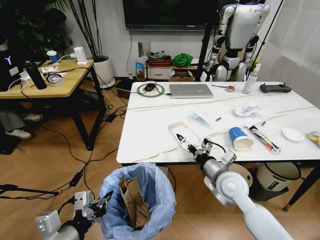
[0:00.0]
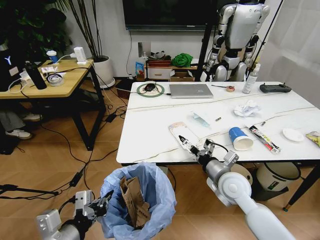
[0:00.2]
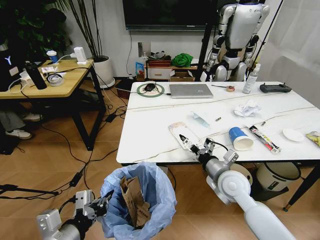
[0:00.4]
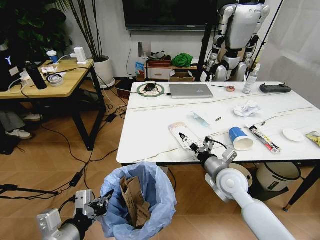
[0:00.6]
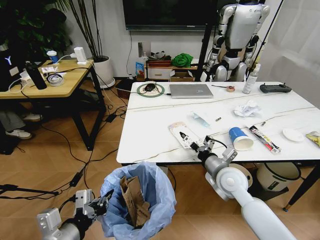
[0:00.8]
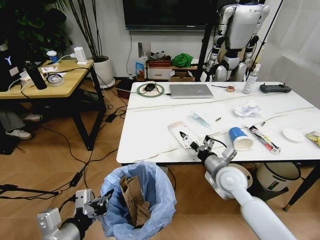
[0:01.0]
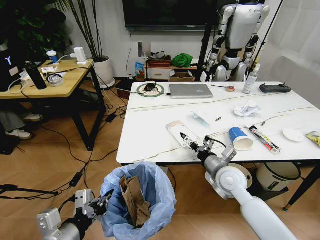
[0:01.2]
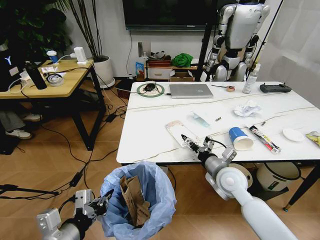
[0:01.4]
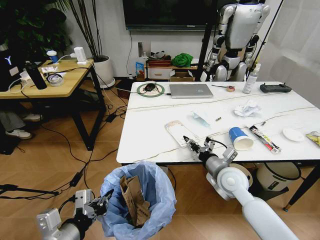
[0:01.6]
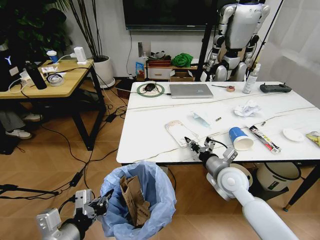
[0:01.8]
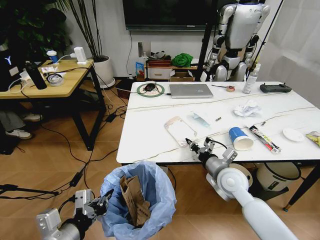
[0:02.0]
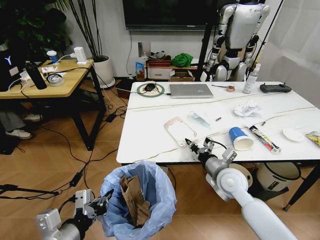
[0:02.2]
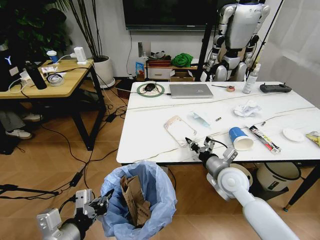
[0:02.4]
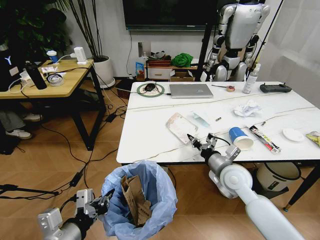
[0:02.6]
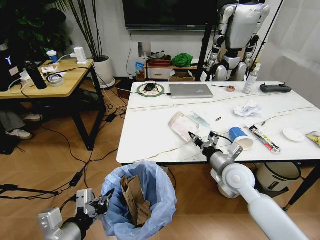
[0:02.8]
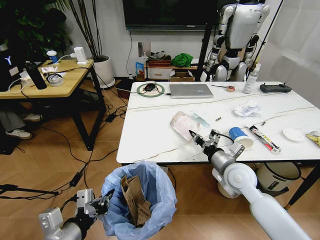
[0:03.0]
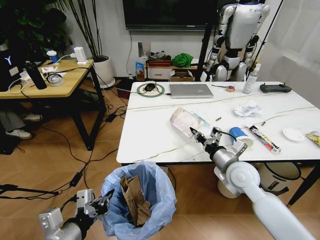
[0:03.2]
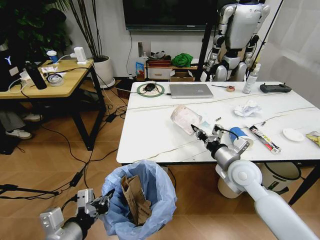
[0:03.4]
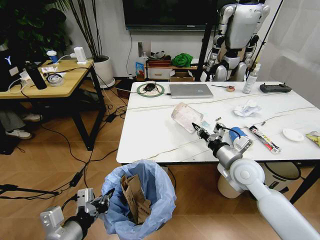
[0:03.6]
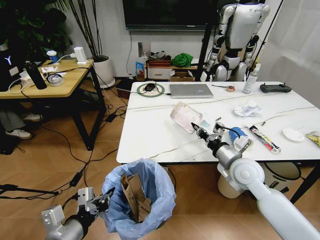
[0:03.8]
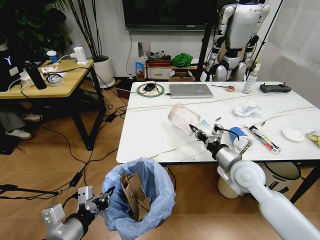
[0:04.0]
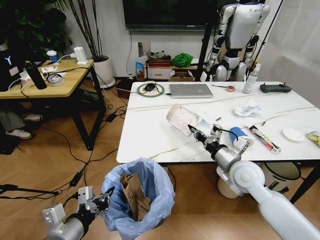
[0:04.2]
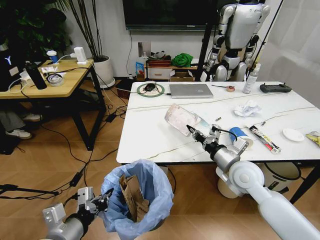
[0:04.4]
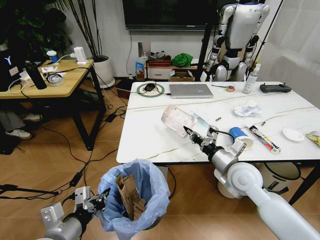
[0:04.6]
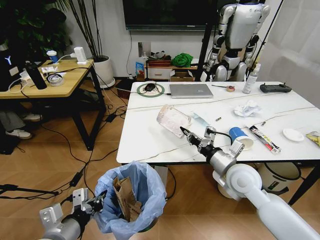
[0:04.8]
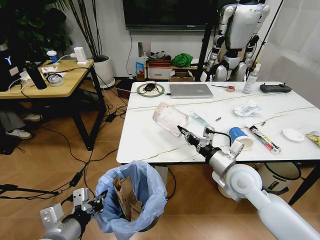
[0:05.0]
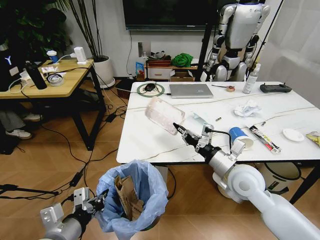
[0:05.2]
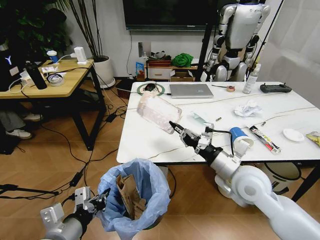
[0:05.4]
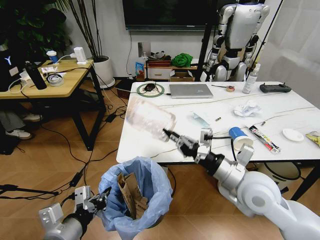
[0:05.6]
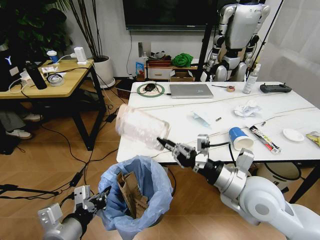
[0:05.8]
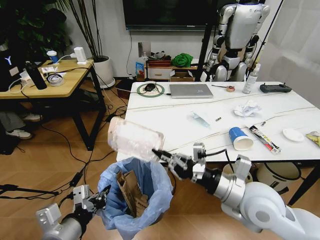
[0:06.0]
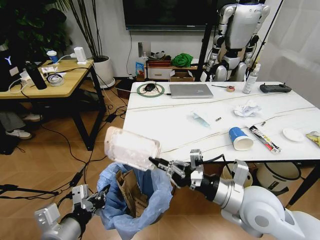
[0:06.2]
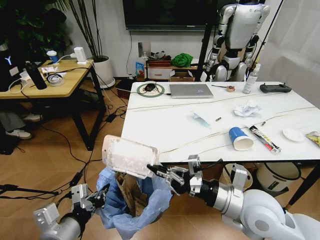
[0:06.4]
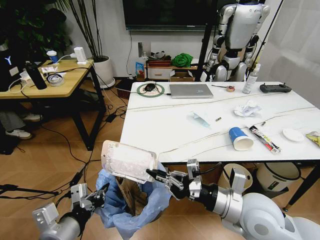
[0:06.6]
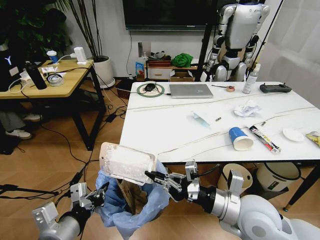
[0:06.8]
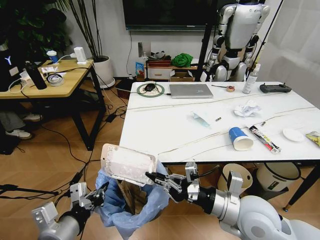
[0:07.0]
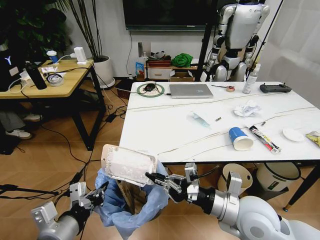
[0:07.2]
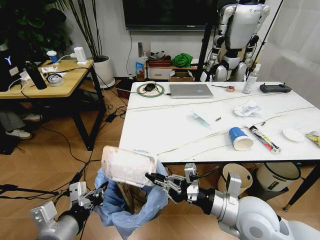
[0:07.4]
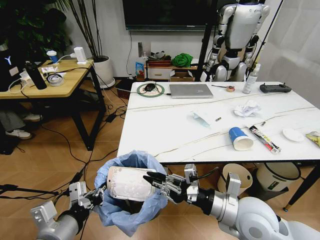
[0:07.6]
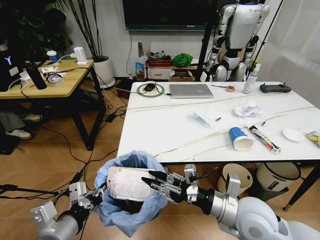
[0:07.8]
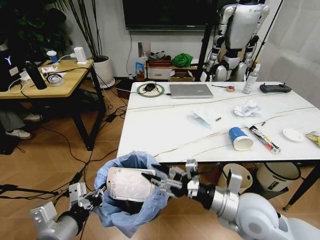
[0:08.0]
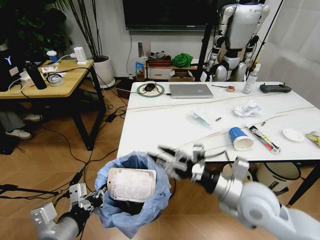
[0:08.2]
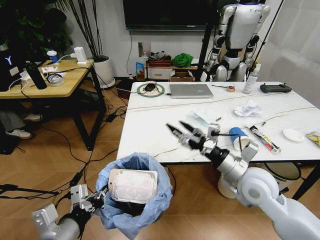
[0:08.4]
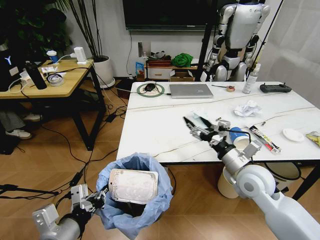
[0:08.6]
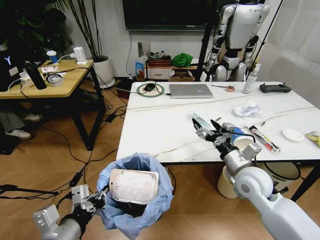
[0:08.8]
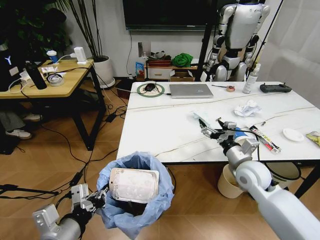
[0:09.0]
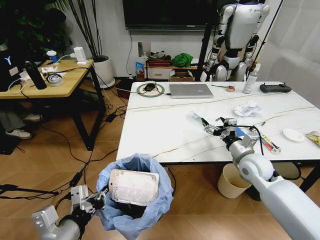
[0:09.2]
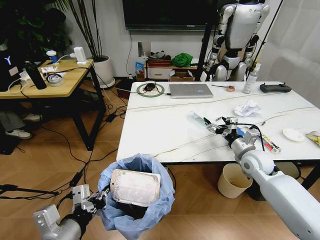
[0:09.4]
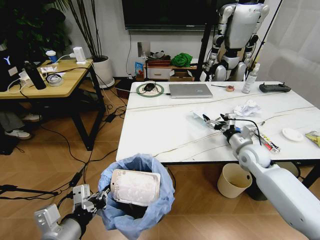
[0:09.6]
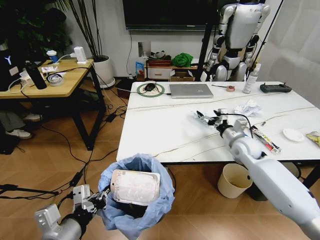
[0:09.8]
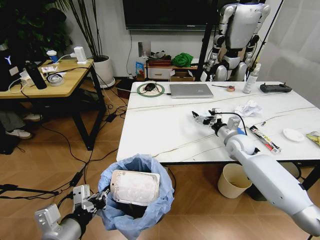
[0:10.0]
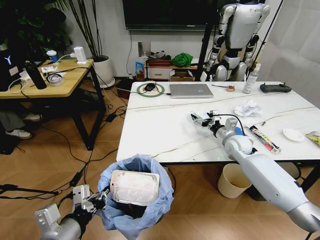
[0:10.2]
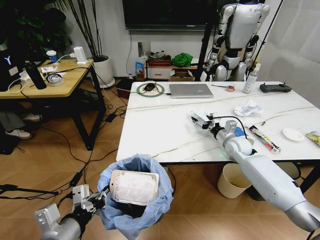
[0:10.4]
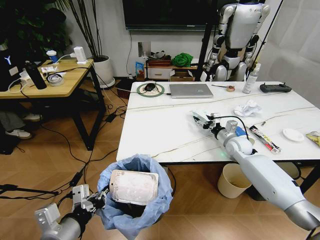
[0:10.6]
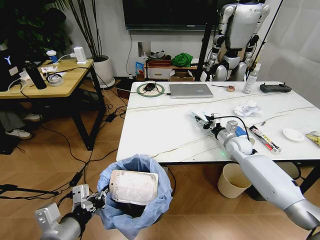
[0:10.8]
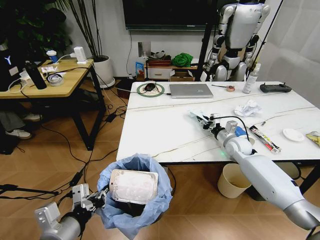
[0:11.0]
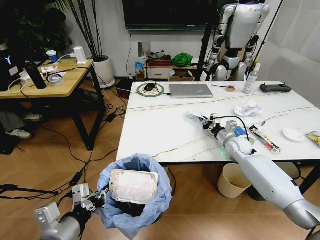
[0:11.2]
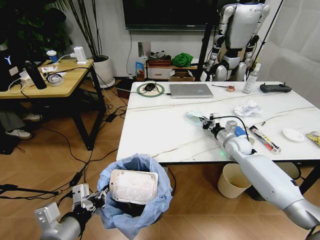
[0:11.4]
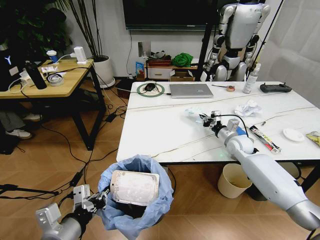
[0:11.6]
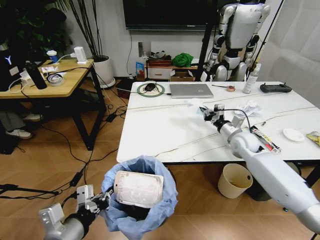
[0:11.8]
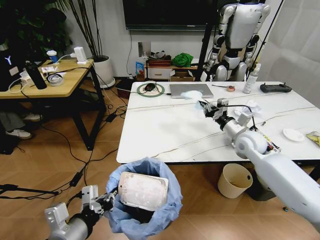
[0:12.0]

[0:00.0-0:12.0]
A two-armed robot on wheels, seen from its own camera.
Task of the whole recording: Pick up the trash bin and place the trash from the table into it.
0:00.0 to 0:01.6: The right gripper closes.
0:01.6 to 0:03.0: The right gripper closes its fingers.
0:03.0 to 0:04.4: The grippers move only a little.
0:04.4 to 0:06.0: The right gripper travels backward and upward by about 10 cm.
0:06.0 to 0:07.6: The grippers make only small movements.
0:07.6 to 0:09.0: The right gripper heads forward and to the right, covering some 15 cm, and opens.
0:09.0 to 0:10.4: The right gripper is displaced forward by about 15 cm.
0:10.4 to 0:12.0: The right gripper travels upward and backward by about 10 cm, and closes up.

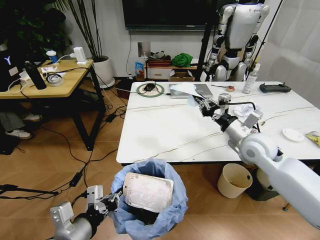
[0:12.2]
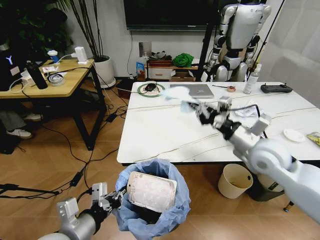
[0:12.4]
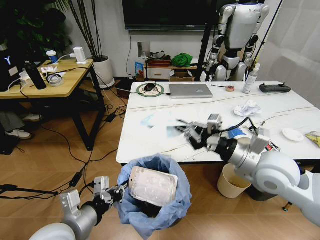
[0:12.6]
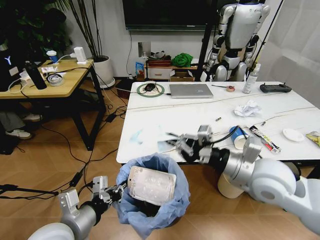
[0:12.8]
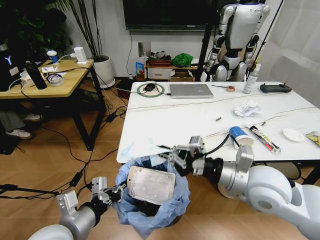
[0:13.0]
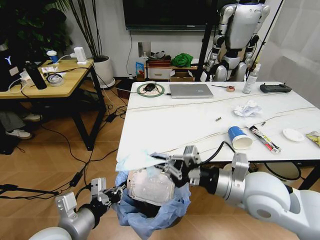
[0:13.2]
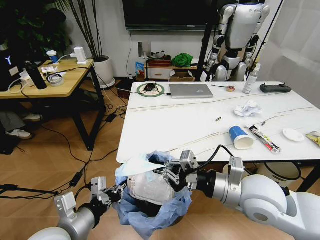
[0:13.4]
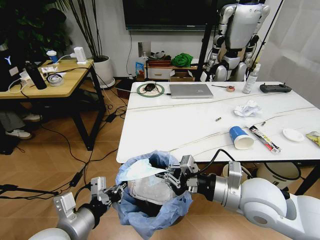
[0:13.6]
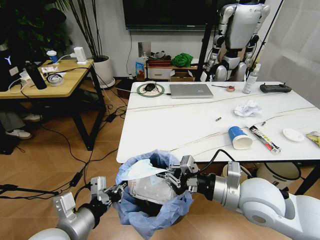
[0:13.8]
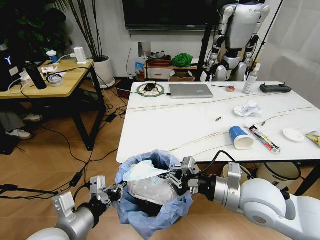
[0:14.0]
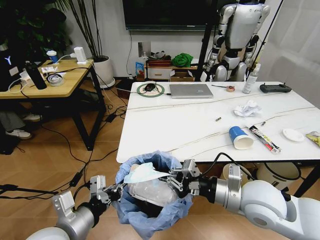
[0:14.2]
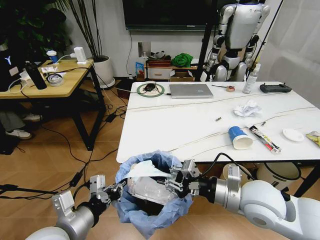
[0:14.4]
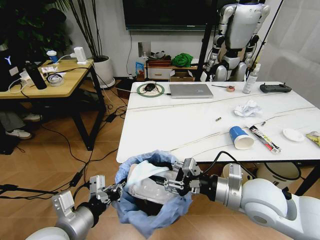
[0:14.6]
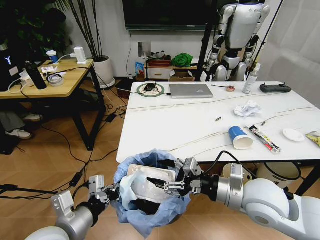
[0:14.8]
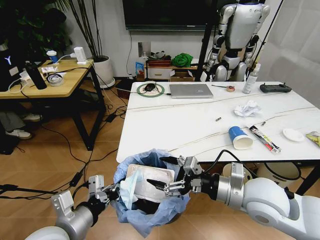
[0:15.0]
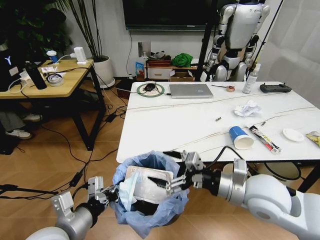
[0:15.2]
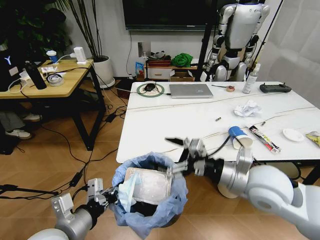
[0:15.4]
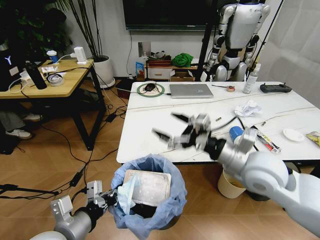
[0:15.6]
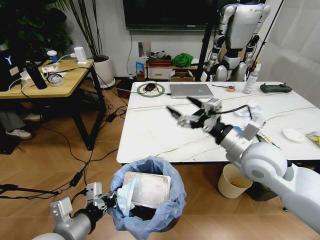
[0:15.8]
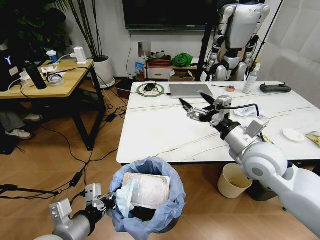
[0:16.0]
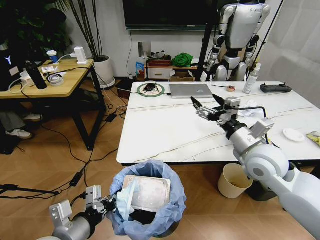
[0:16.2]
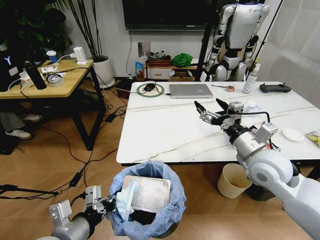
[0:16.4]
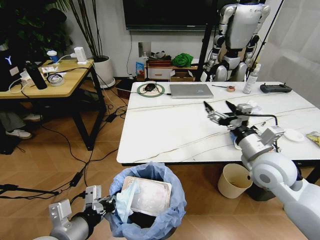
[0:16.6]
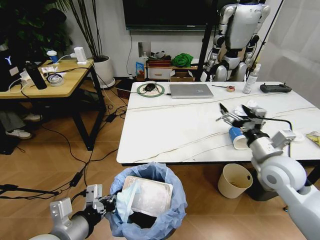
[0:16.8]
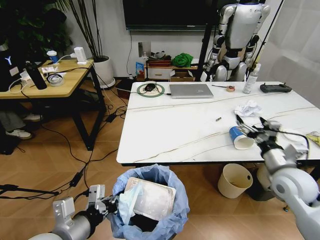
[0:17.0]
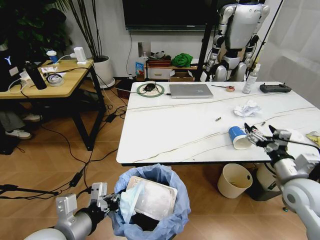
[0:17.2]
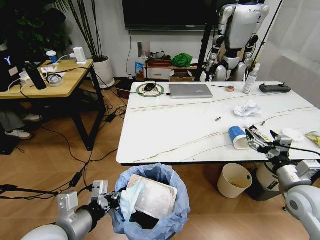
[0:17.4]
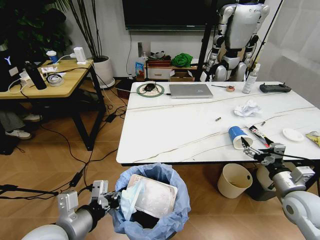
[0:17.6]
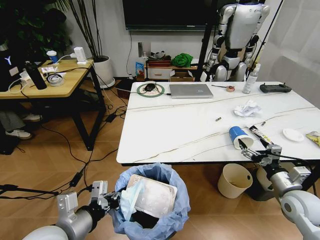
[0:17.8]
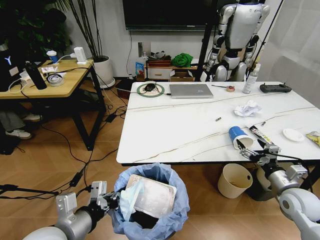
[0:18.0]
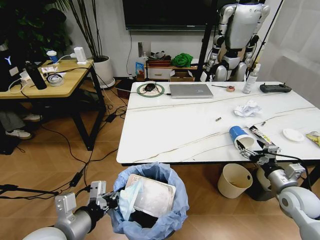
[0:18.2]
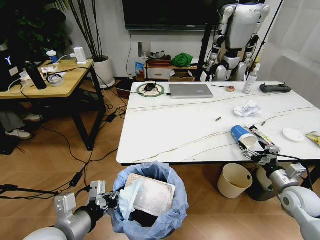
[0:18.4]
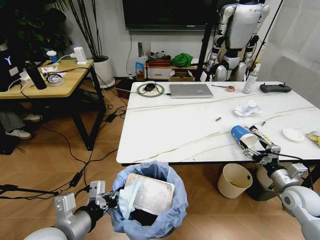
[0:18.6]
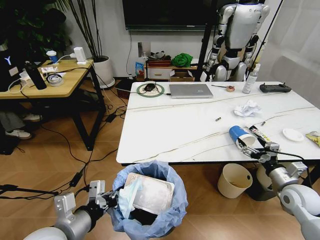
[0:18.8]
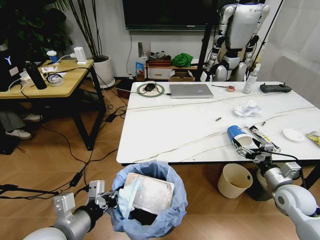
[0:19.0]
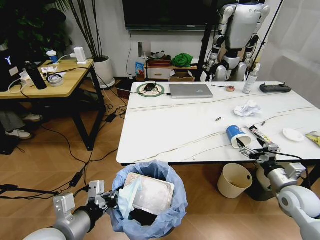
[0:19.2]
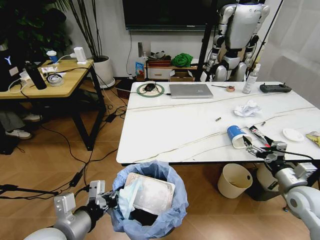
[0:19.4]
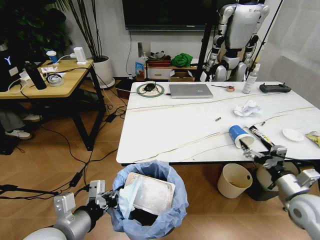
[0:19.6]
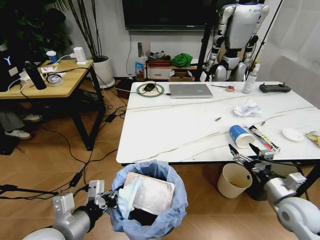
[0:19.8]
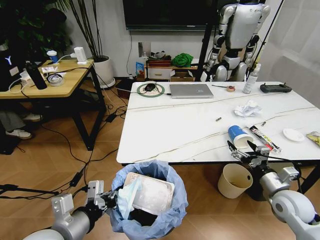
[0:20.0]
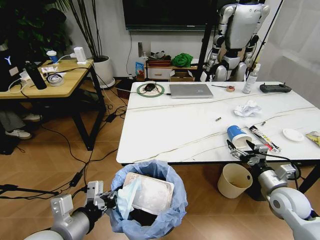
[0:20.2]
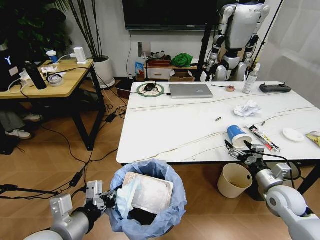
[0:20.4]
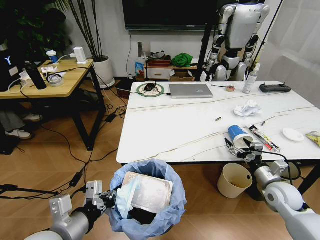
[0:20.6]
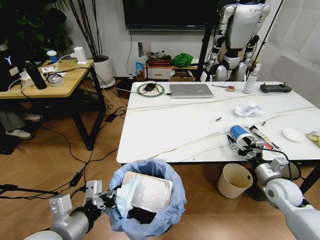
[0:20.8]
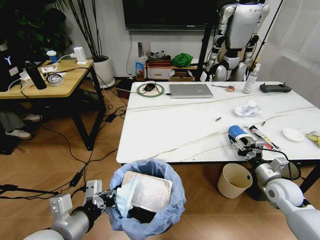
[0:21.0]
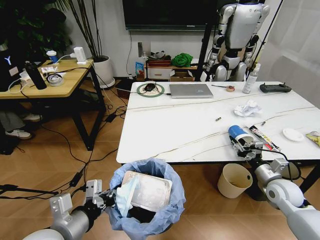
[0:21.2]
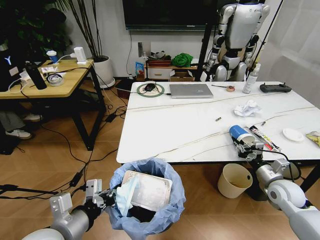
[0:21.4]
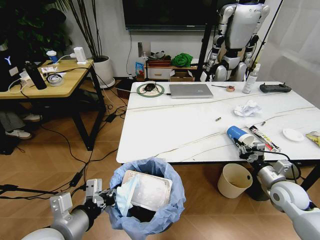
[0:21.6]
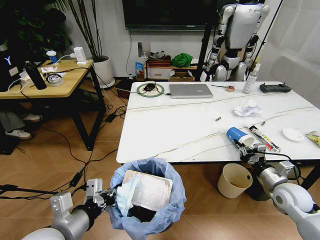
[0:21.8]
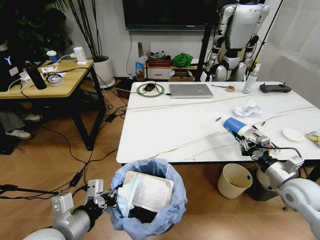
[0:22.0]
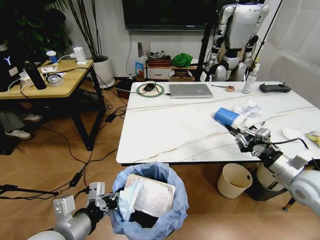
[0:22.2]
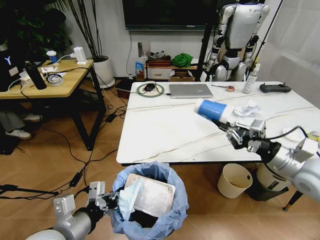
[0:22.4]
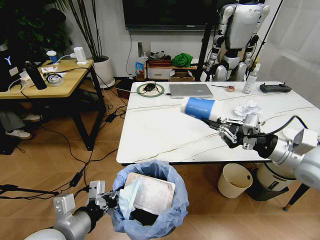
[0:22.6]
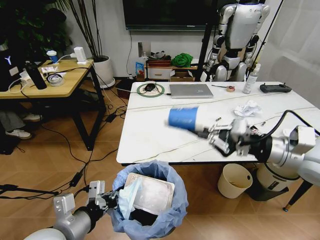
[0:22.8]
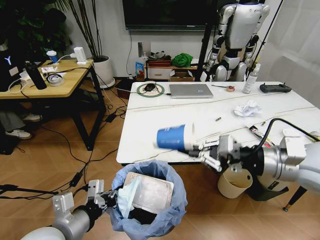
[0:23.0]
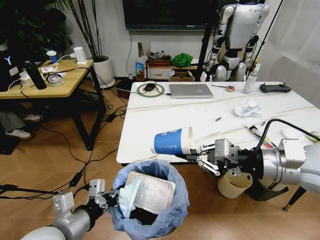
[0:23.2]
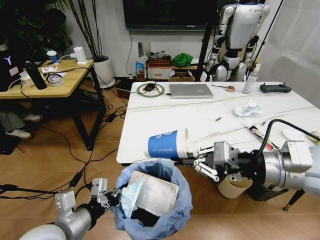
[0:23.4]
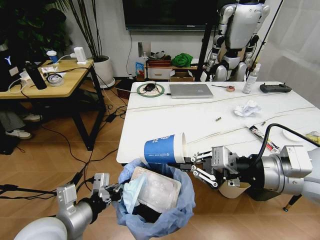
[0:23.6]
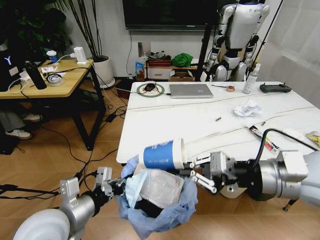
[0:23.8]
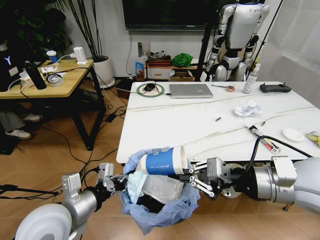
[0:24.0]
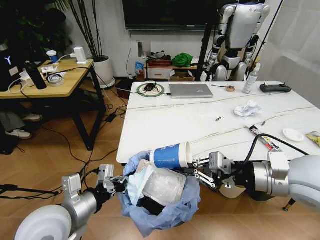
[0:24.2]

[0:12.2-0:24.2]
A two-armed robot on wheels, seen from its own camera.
Task of the whole recording: Pick up the trash bin and place the trash from the table into it.
0:12.2 to 0:13.8: The right gripper heads backward and to the left, covering about 15 cm.
0:13.8 to 0:15.2: The right gripper opens.
0:15.2 to 0:16.6: The right gripper goes roughly 10 cm forward and to the right.
0:16.6 to 0:18.2: The right gripper shifts some 20 cm downward and to the right.
0:18.2 to 0:19.8: The right gripper changes place by roughly 5 cm.
0:19.8 to 0:21.2: The right gripper goes roughly 10 cm forward, and closes its fingers.
0:21.2 to 0:22.6: The right gripper goes roughly 20 cm upward, and closes its fingers.
0:22.6 to 0:24.2: The right gripper is displaced to the left and backward by approximately 10 cm.
